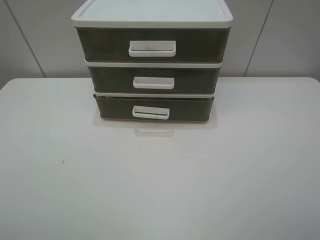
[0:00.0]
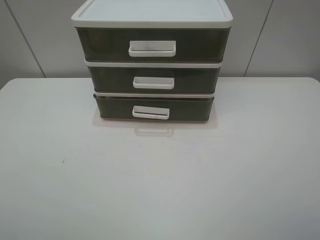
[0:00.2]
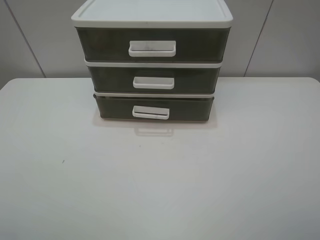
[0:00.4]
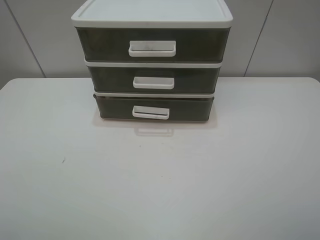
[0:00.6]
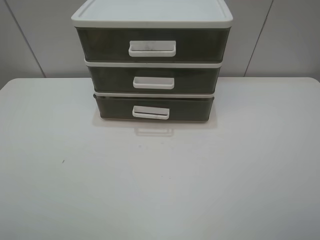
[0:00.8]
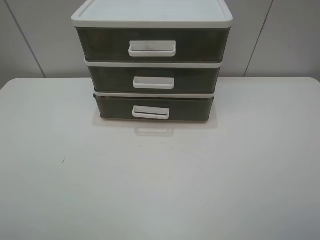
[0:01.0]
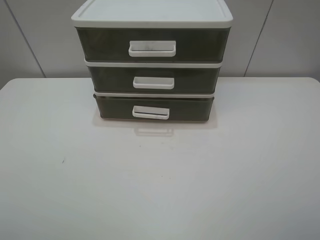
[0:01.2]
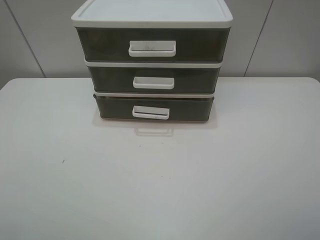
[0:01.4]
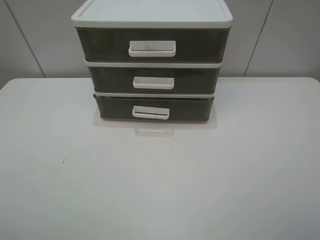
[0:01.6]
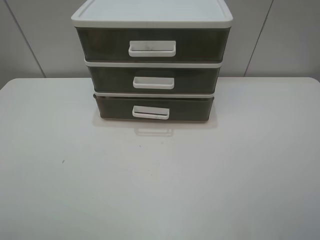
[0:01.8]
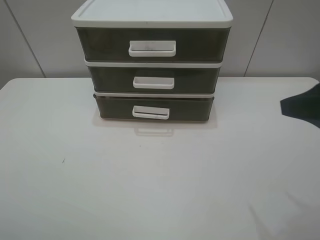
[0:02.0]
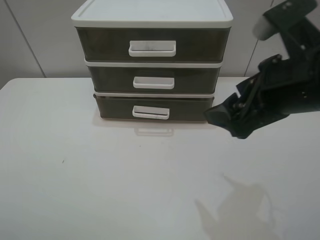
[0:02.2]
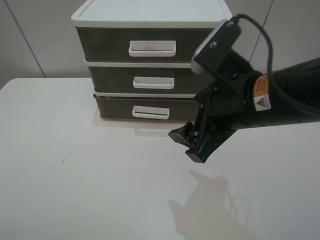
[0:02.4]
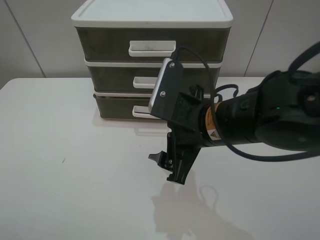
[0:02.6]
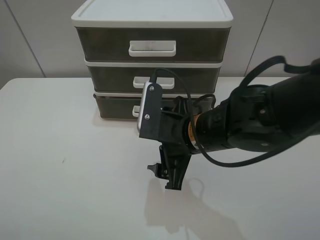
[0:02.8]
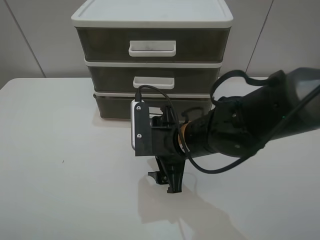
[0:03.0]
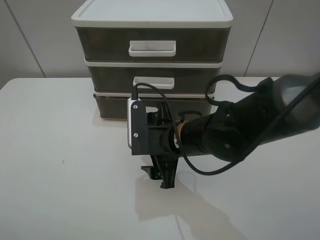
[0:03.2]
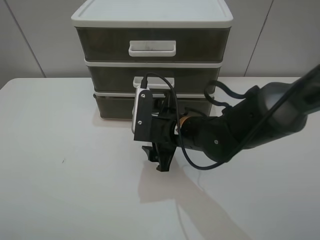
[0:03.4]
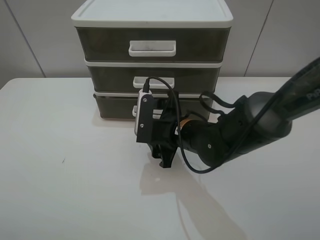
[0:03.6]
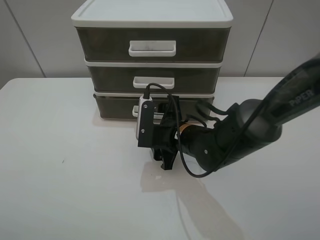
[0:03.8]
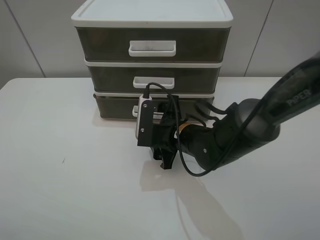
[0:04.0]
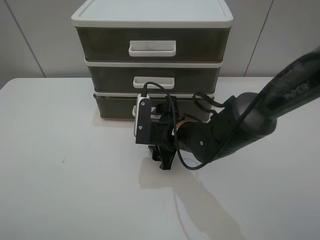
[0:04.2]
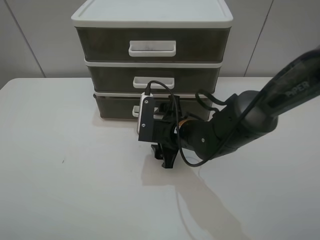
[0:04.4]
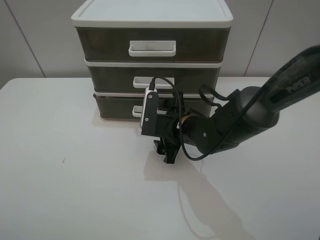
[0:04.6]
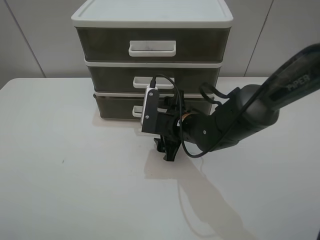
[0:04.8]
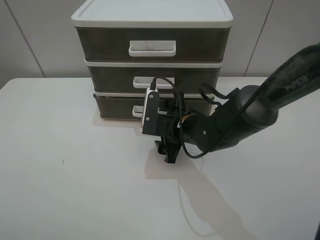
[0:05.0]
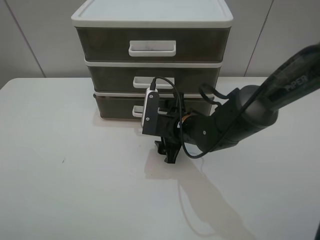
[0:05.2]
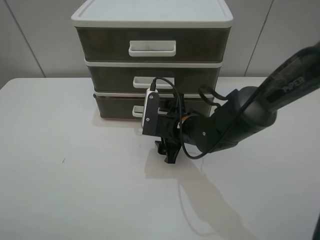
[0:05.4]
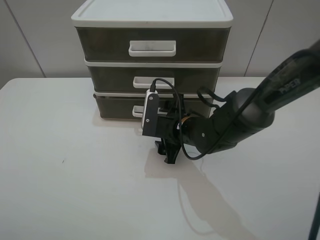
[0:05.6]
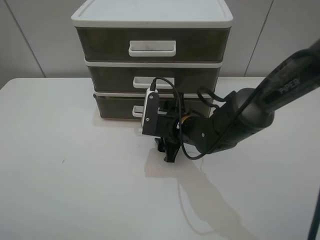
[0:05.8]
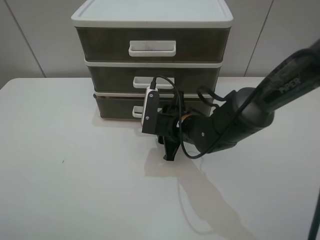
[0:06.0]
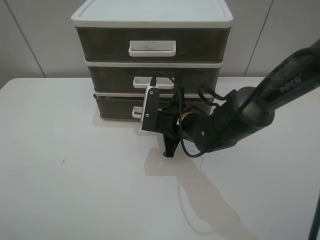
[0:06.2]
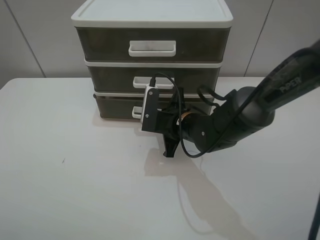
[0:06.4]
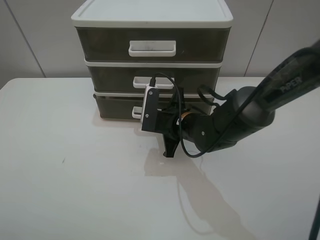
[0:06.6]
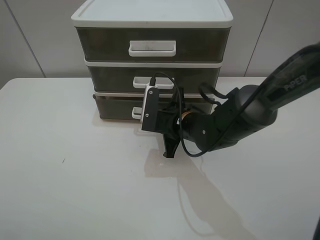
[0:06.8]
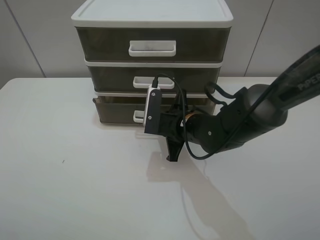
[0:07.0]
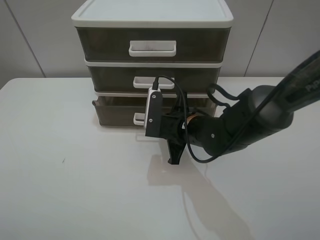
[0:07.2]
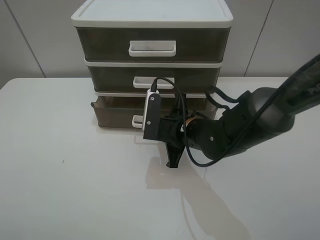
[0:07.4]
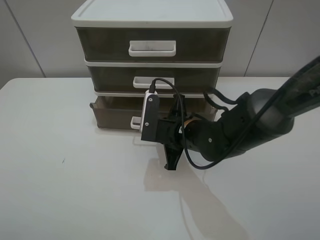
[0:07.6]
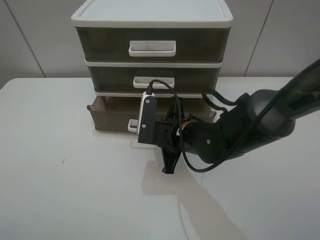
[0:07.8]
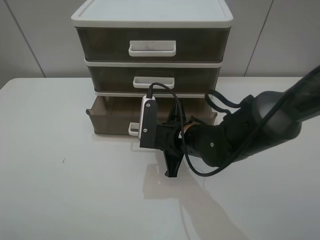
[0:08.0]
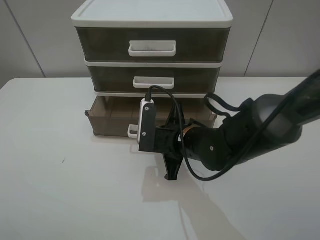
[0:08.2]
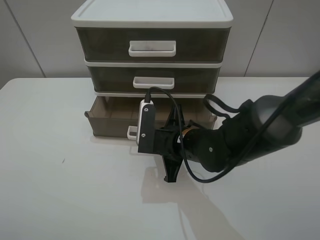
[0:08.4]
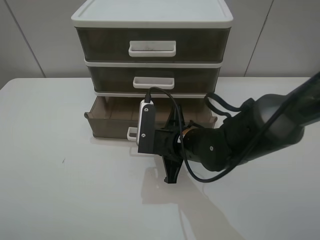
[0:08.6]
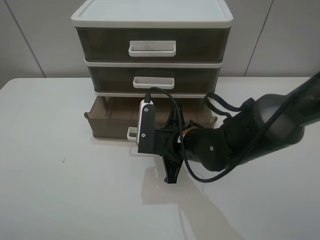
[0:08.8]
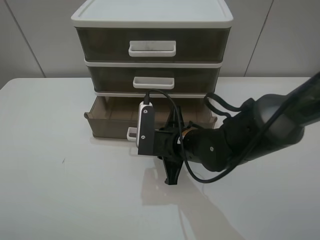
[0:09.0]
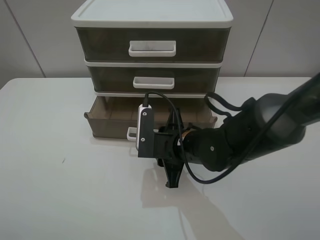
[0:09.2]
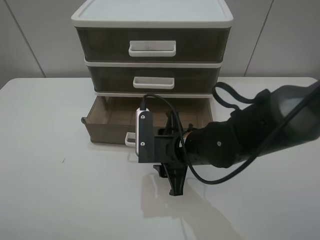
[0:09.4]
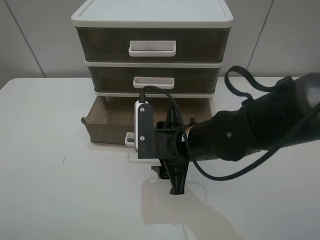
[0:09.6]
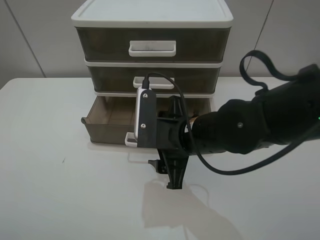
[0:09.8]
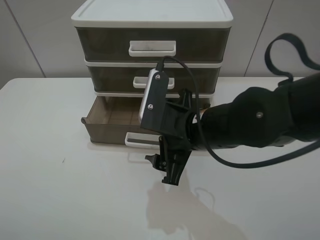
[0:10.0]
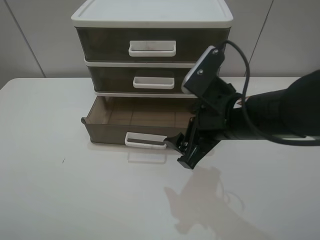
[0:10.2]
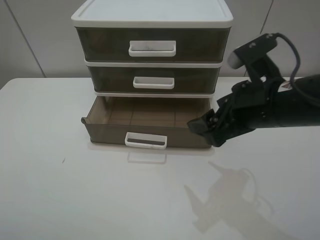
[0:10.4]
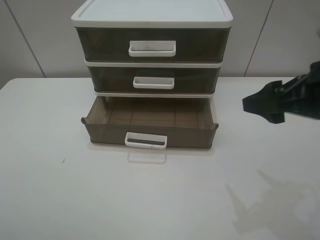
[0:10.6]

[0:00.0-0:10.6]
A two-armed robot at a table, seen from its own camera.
Task of the whole recording: open the bottom drawer.
Step, 0:00.0 to 0:06.6: Grab the bottom drawer with the right gripper.
Step, 0:06.8 to 0:10.0: Pull open the drawer with the right gripper.
0:00.0 to 0:01.6: Both grippers stay put.
0:01.6 to 0:03.0: The right gripper moves to the left, forward and downward, roughly 35 cm.
0:03.0 to 0:04.6: The right gripper heads forward, covering about 5 cm.
0:04.6 to 0:06.0: The right gripper closes up.
0:06.0 to 0:07.6: The right gripper closes up.
0:07.6 to 0:09.0: The grippers make only small movements.
0:09.0 to 0:10.6: The right gripper shifts some 25 cm to the right and upward, and opens.

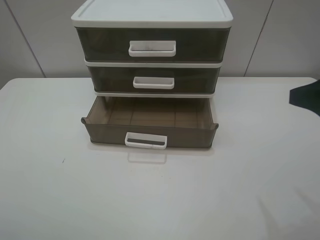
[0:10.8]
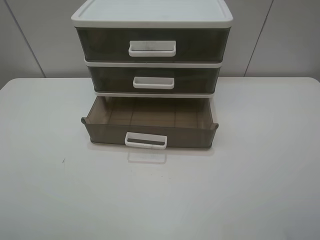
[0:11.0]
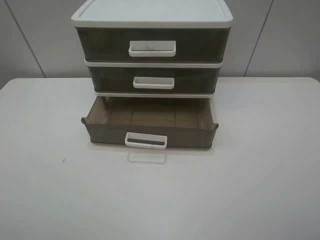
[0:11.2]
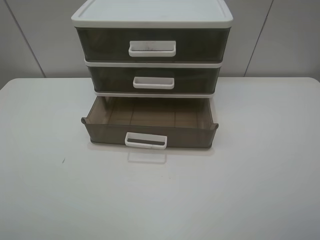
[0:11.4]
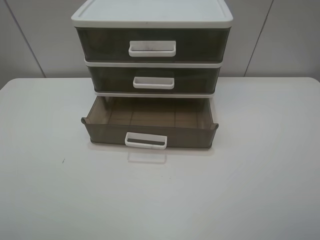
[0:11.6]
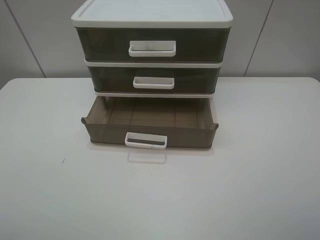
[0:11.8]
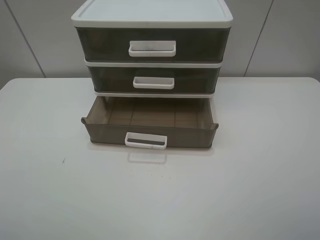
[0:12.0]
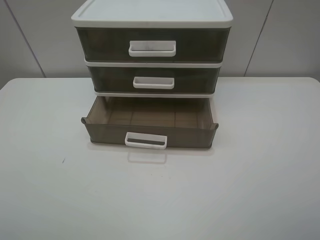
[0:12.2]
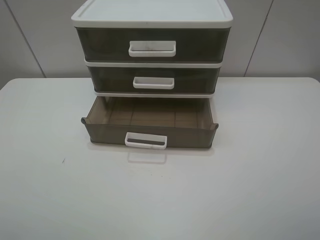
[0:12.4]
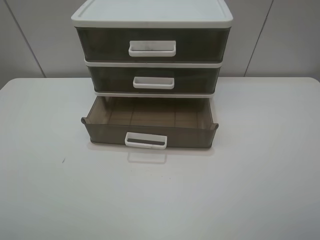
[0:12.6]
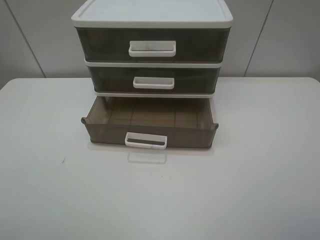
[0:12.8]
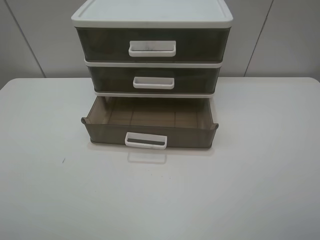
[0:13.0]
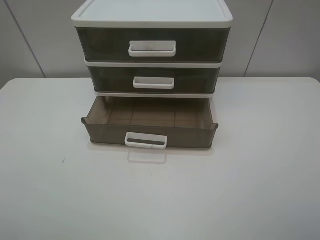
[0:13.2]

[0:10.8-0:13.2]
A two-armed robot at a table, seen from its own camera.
Task of the whole recording: open the bottom drawer.
0:10.8 to 0:12.0: The right gripper heads backward, covering roughly 15 cm.

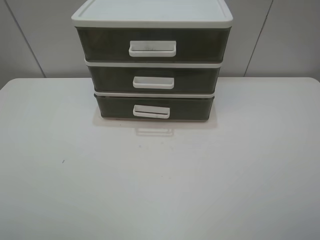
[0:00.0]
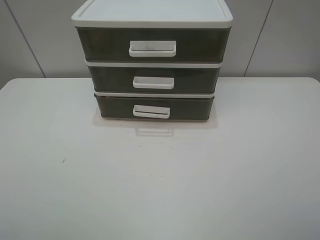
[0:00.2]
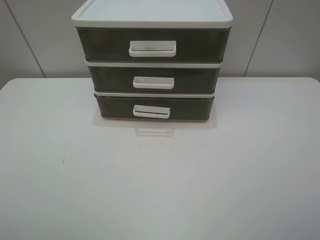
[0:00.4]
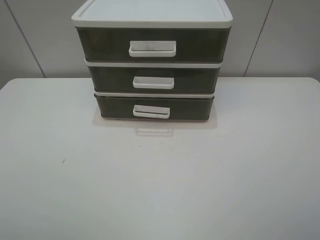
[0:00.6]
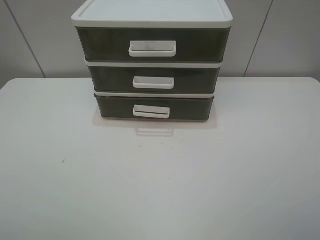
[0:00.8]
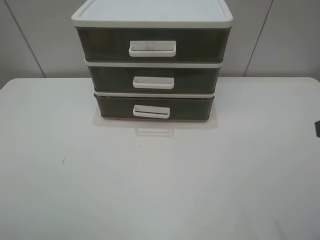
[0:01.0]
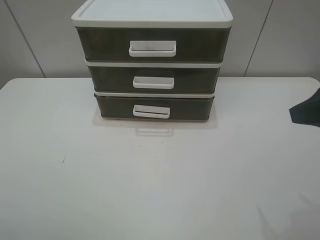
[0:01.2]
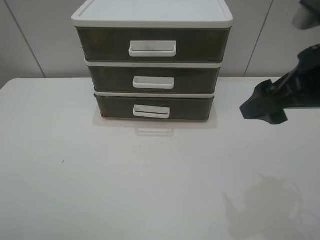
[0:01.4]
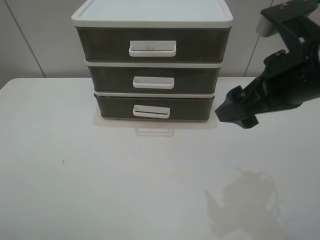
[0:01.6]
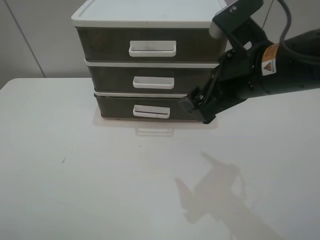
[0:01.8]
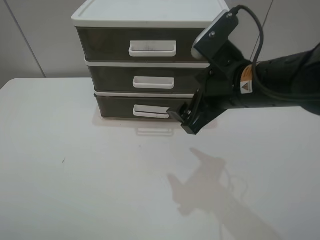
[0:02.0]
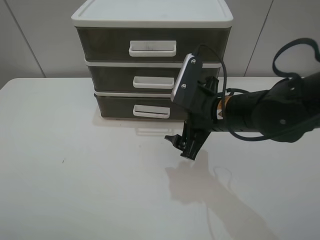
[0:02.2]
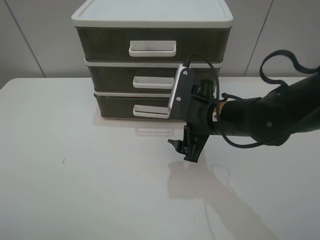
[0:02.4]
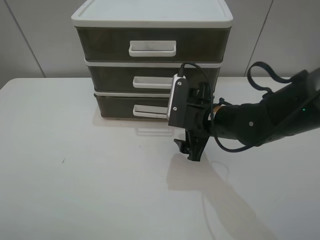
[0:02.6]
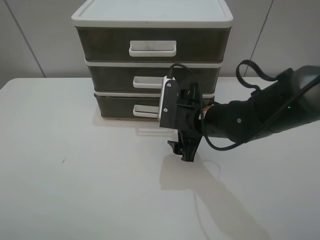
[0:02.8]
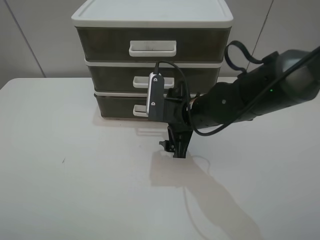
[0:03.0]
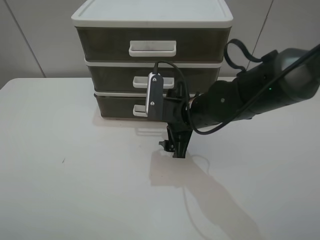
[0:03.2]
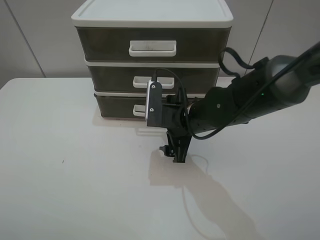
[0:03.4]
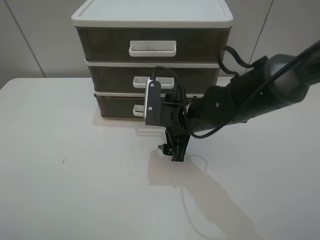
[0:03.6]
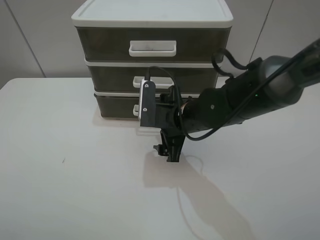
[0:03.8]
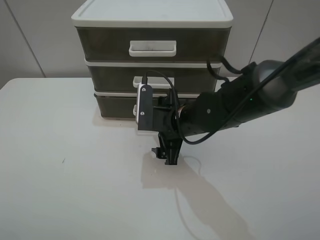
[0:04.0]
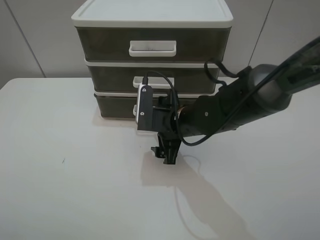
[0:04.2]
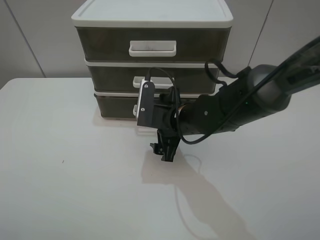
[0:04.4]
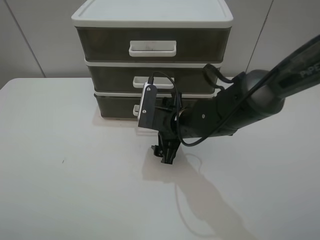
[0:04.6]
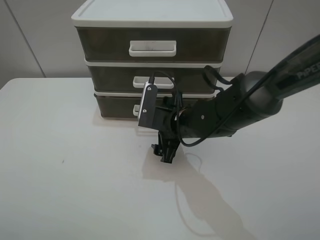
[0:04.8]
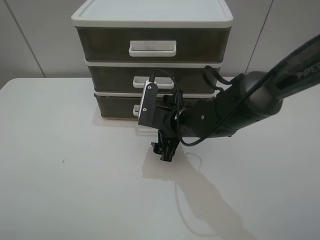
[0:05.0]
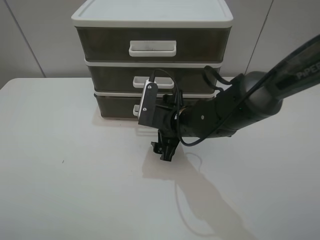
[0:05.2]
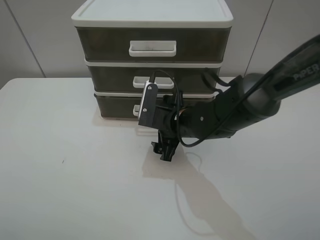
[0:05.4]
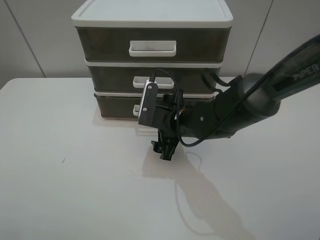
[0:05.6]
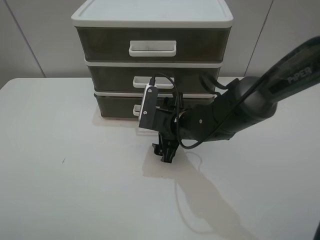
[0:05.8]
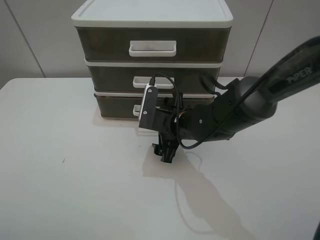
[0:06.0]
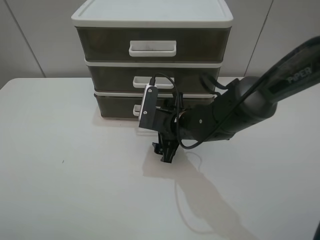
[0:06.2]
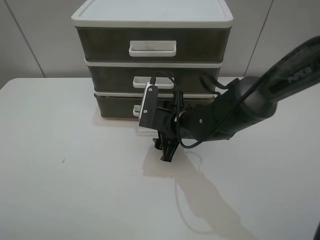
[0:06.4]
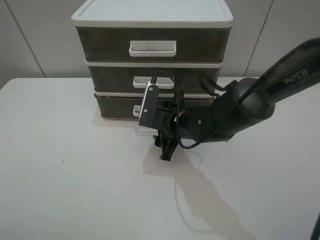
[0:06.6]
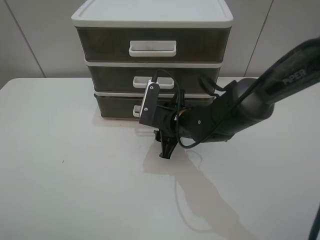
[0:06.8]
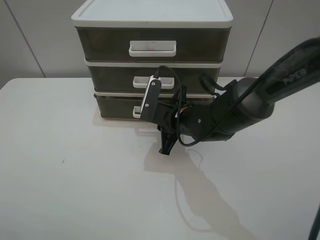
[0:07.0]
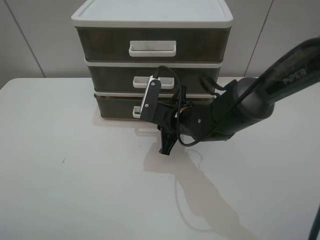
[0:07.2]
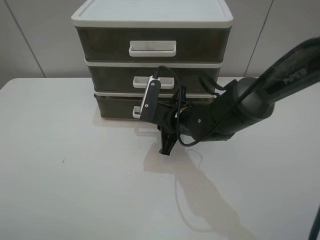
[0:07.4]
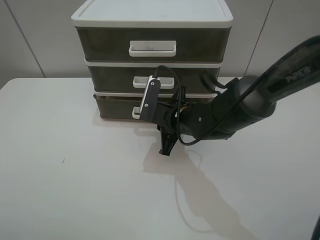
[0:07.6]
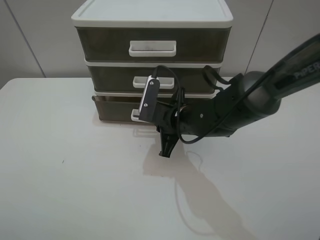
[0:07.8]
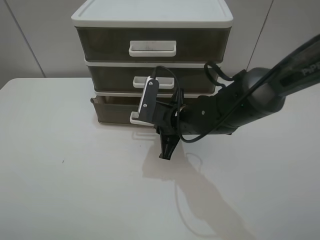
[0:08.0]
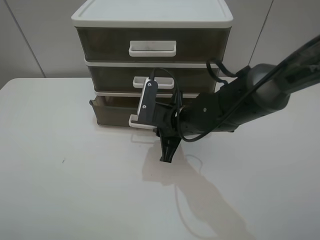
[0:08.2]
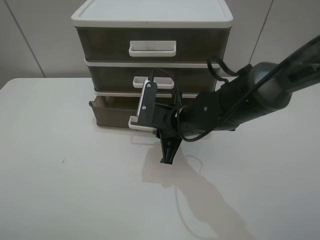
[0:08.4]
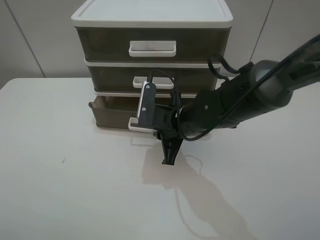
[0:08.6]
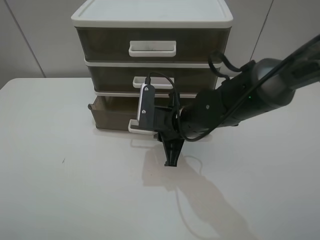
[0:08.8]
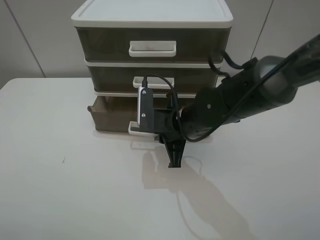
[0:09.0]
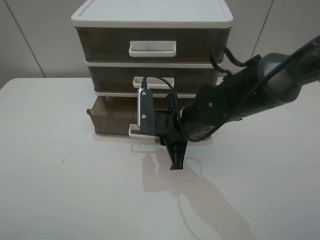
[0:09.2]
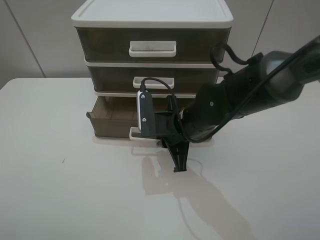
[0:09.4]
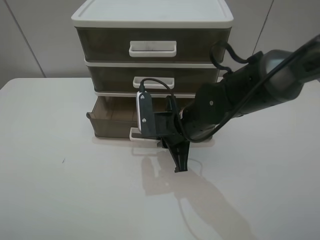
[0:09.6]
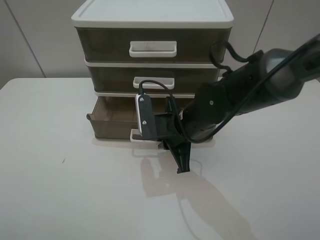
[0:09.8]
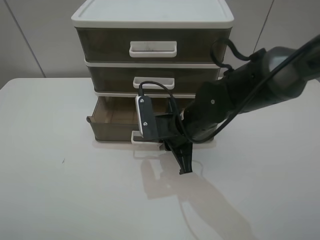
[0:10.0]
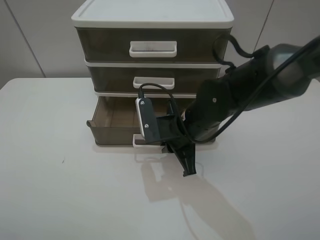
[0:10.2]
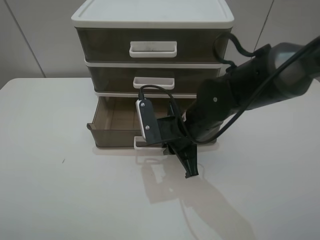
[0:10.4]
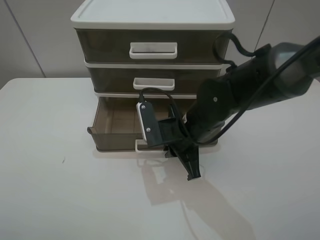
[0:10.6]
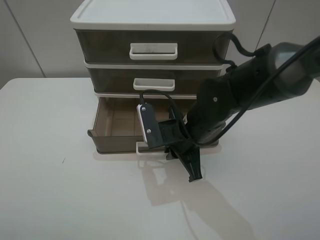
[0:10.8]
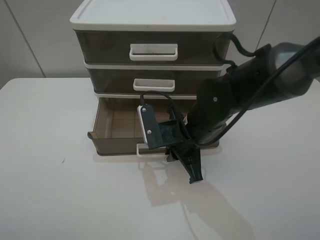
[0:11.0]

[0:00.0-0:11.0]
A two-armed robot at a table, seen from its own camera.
Task of the whole recording: open the bottom drawer.
Step, 0:00.0 to 0:07.4: Grab the bottom drawer with the right gripper.
0:00.0 to 0:01.6: The right gripper goes some 25 cm forward and to the left.
0:01.6 to 0:03.2: The right gripper heads downward, to the left and forward, covering some 20 cm.
0:03.2 to 0:04.8: The grippers make only small movements.
0:04.8 to 0:06.2: Neither gripper changes place.
0:06.2 to 0:07.8: The right gripper closes up.
0:09.4 to 0:11.0: The grippers make only small movements.
